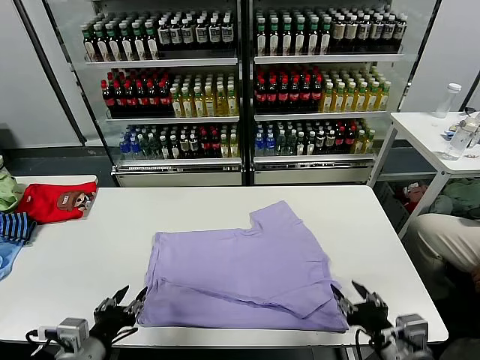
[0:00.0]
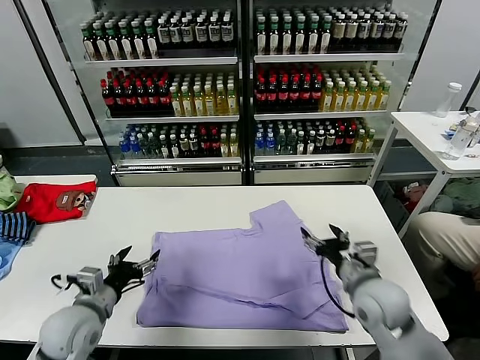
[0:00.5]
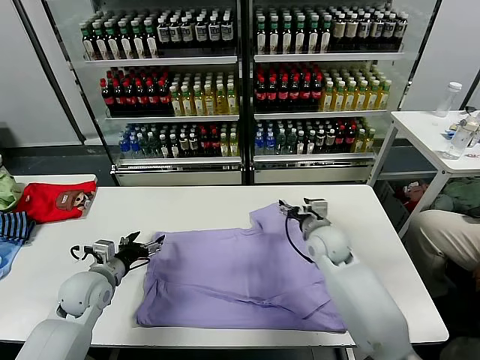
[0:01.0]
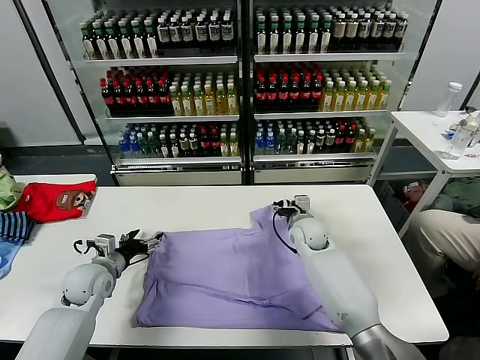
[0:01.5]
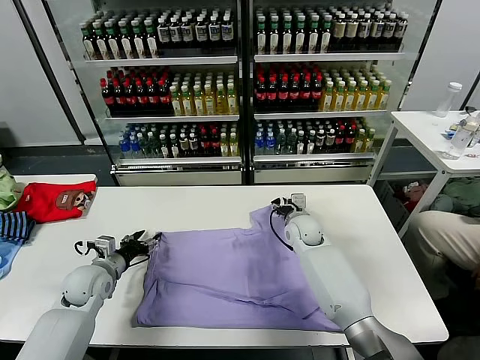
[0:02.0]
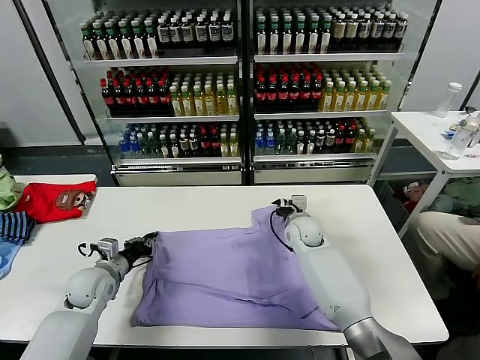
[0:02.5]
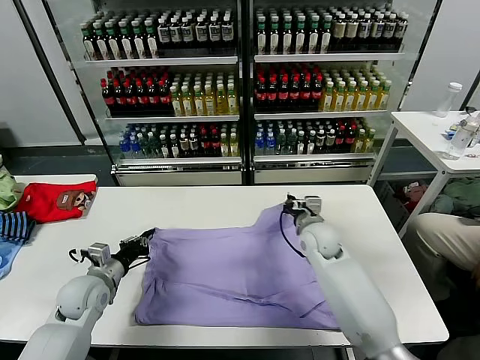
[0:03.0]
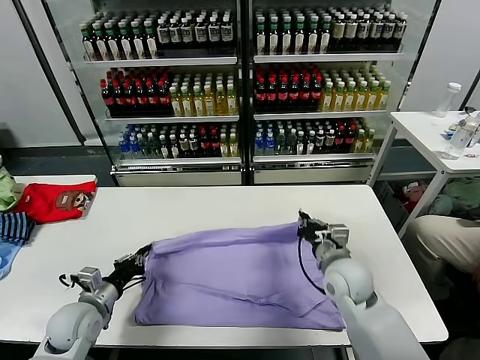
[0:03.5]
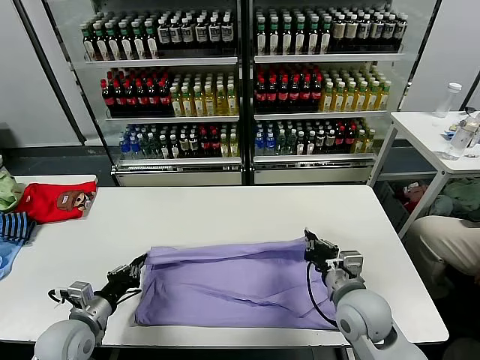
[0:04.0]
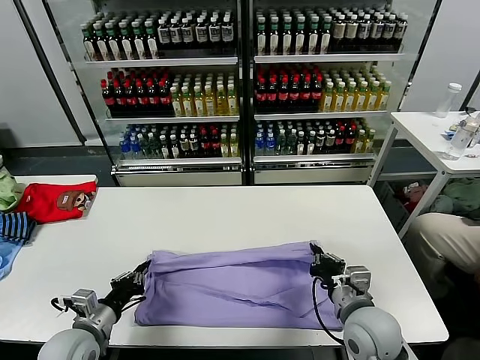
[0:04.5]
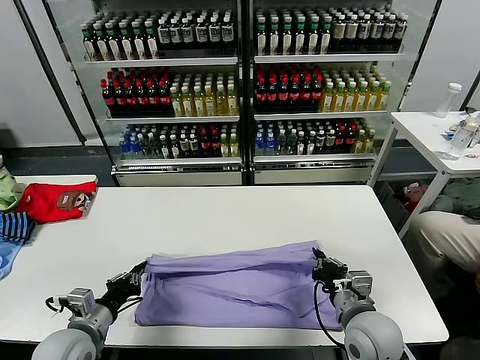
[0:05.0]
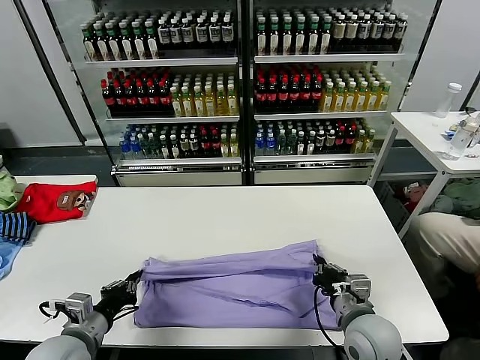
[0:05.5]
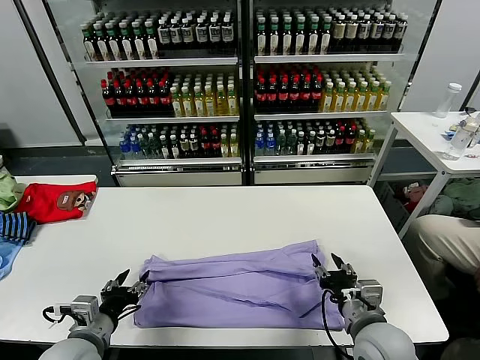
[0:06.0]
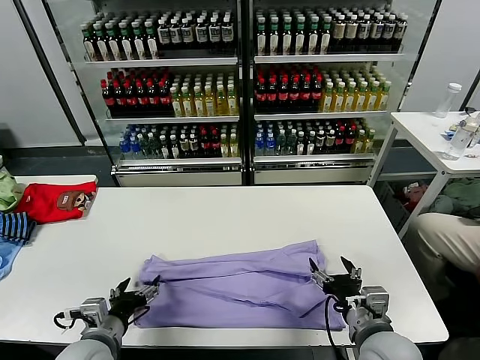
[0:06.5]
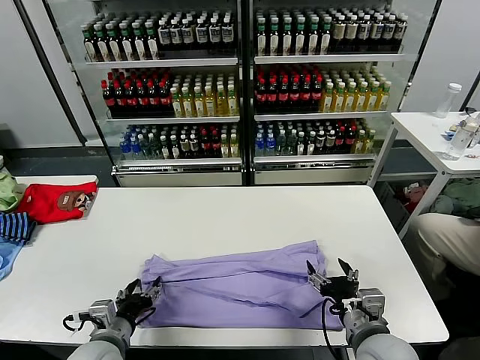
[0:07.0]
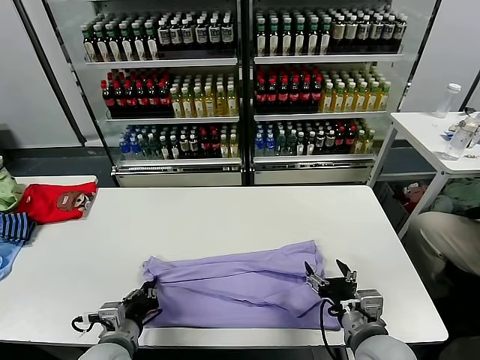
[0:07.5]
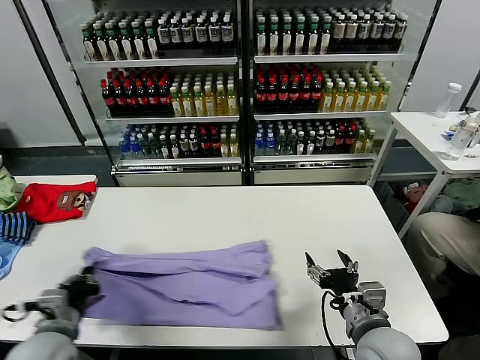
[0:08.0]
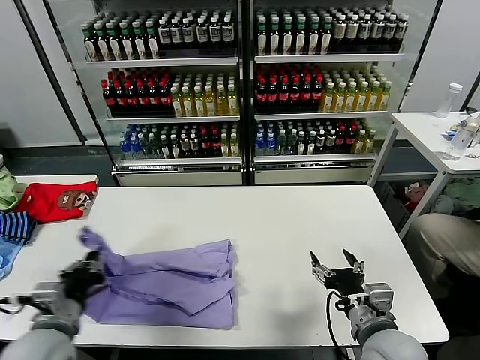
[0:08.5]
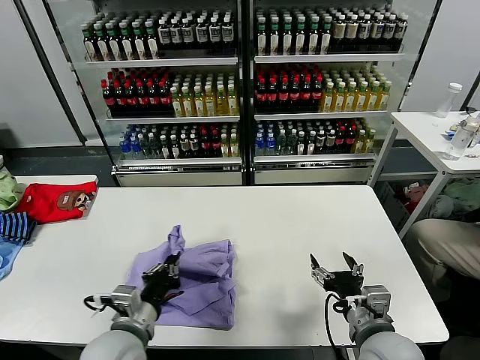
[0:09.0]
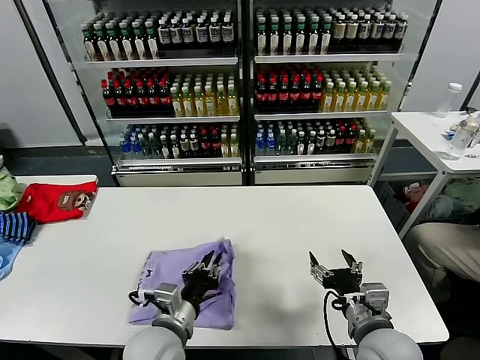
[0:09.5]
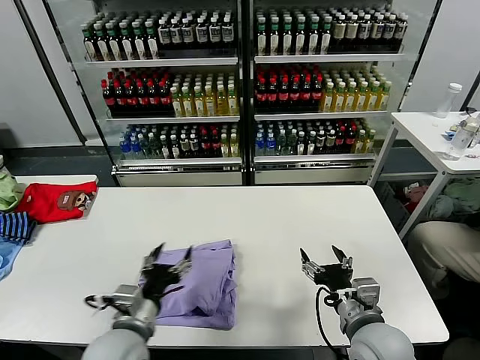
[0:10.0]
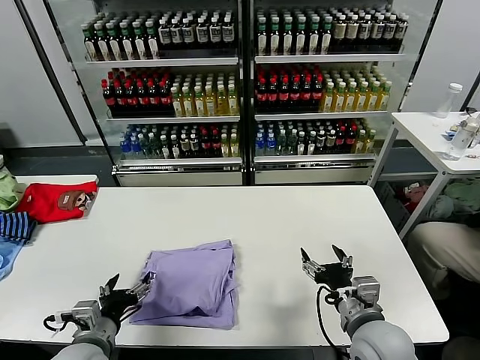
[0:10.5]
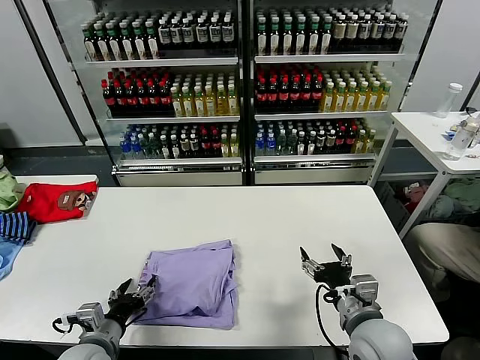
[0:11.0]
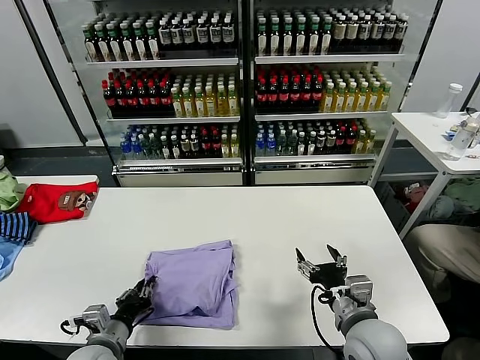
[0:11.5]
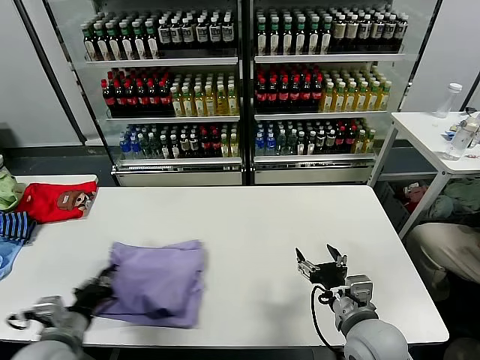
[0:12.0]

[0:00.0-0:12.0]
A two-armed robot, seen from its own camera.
Task of the whole recording: fold and organize the clothes.
Step, 0:00.5 to 0:02.5: use both grippers simultaneously to clamp the upper edge of the clothing fabric.
Step, 0:03.0 to 0:06.0: use both grippers to drag the upper edge of the fabric backward and fold it over the lower edge.
Step, 0:06.5 to 0:07.5: use the left gripper to clamp the left edge of the fabric.
Step, 0:08.0 to 0:09.5: use the left gripper to drag the left edge of the fabric to the left and folds it over the right edge.
0:00.0 to 0:02.0: The left gripper moves forward, some 20 cm, while the right gripper heads forward, covering some 35 cm.
0:02.0 to 0:04.0: The left gripper travels backward by roughly 15 cm, and closes up, while the right gripper travels backward by about 25 cm, and closes its fingers.
0:04.0 to 0:06.0: The left gripper shifts by approximately 5 cm, and opens up, while the right gripper goes roughly 5 cm backward, and opens its fingers.
0:06.0 to 0:08.0: The left gripper closes its fingers.
0:08.0 to 0:10.0: The left gripper shifts roughly 15 cm to the right, and opens its fingers.
0:10.0 to 0:12.0: The left gripper moves to the left, roughly 15 cm, and closes.

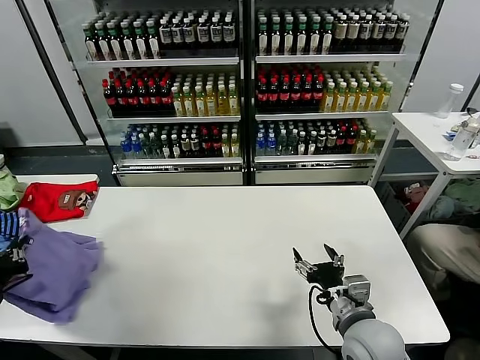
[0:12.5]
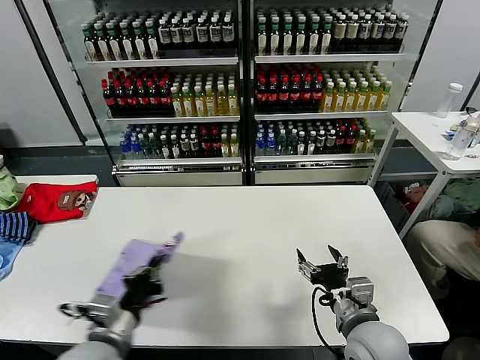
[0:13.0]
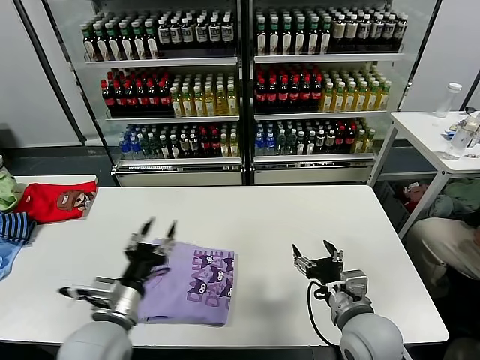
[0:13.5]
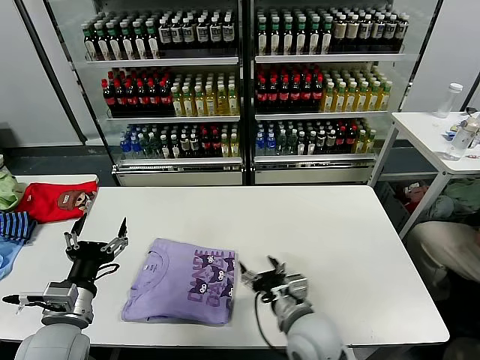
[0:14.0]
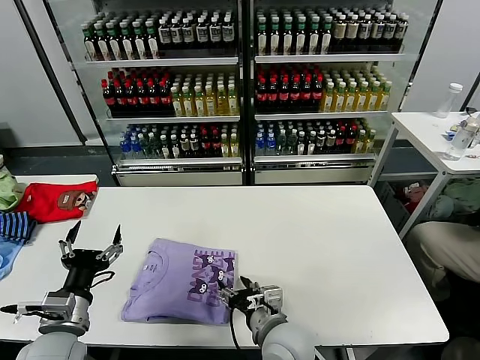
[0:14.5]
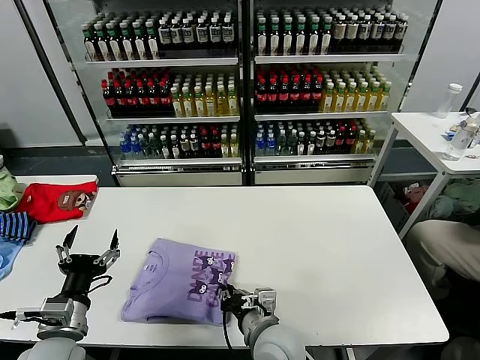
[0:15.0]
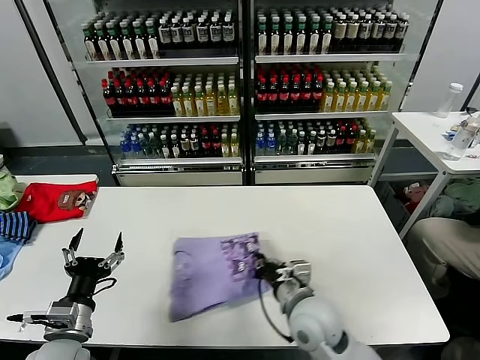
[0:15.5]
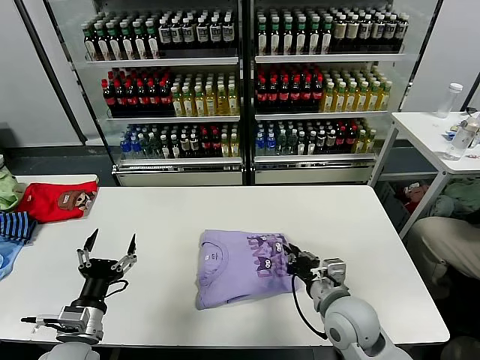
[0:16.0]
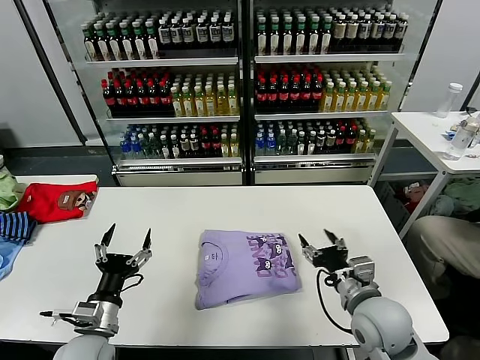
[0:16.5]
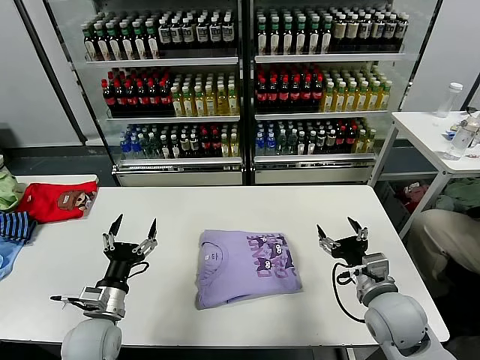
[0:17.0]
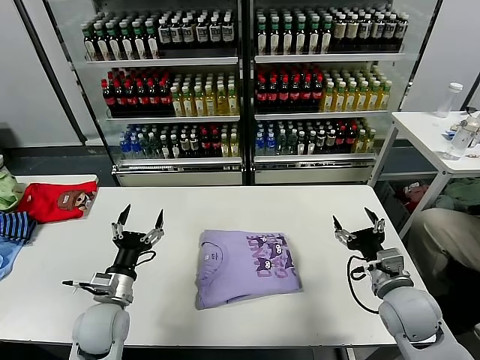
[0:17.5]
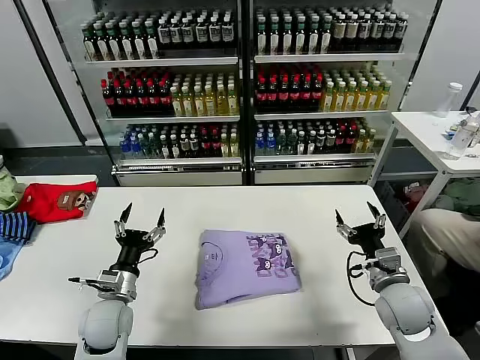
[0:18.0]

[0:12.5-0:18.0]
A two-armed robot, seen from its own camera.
Task of the whole recording: fold and organize the clothes.
Step, 0:13.5 to 0:16.0: Drag the clothes to the center of the table.
0:12.5 to 0:14.5: The left gripper moves to the right and downward, approximately 15 cm, and opens up; the right gripper goes some 15 cm to the left.
0:14.5 to 0:16.0: The right gripper goes some 10 cm to the right, and closes.
0:16.0 to 0:18.0: The left gripper shifts some 10 cm forward, while the right gripper is displaced to the right by roughly 10 cm, and opens its fingers.

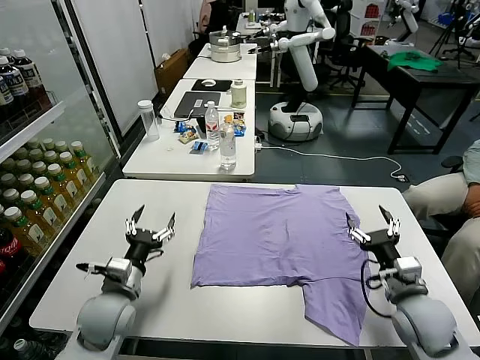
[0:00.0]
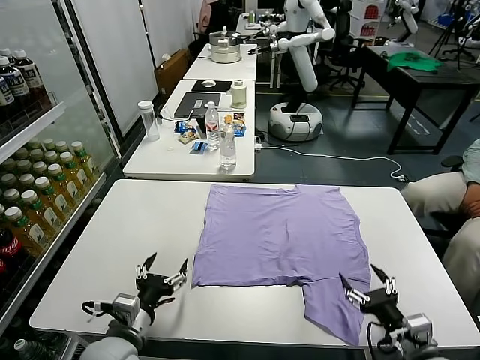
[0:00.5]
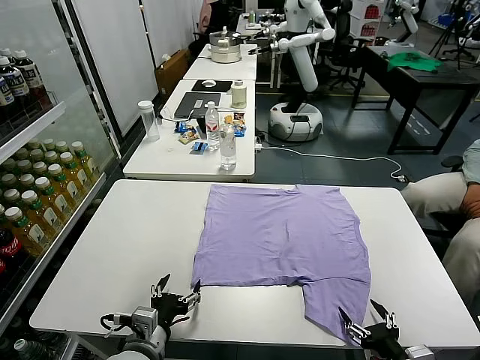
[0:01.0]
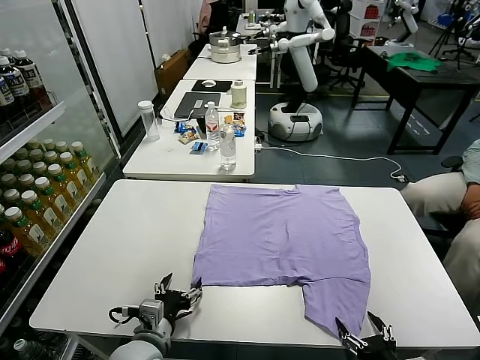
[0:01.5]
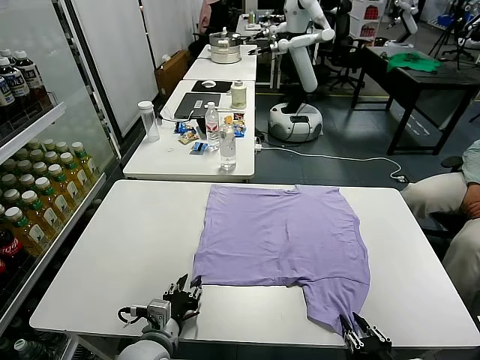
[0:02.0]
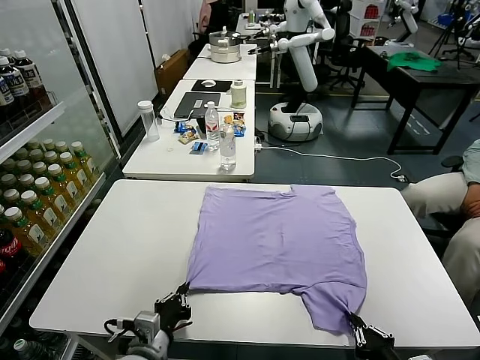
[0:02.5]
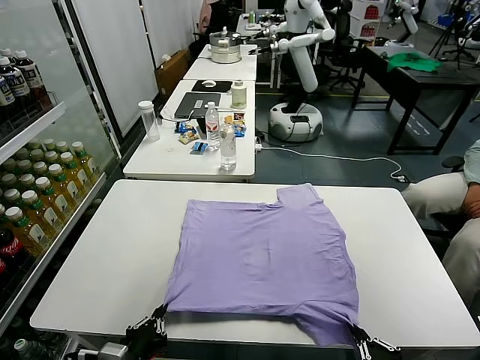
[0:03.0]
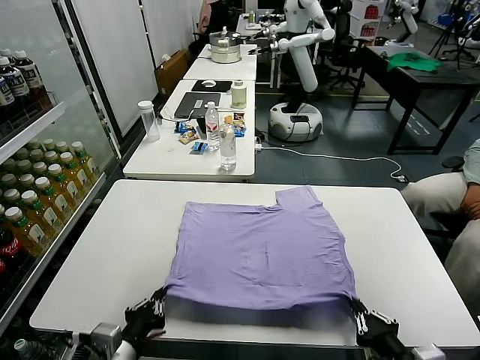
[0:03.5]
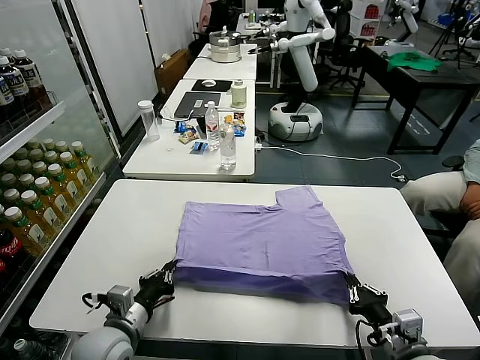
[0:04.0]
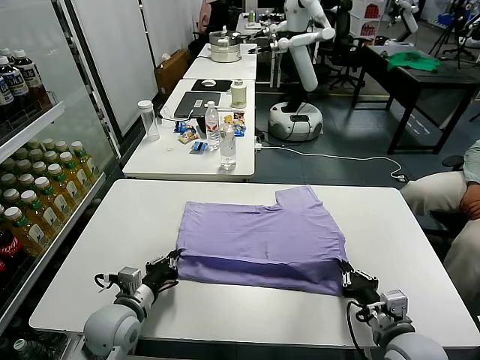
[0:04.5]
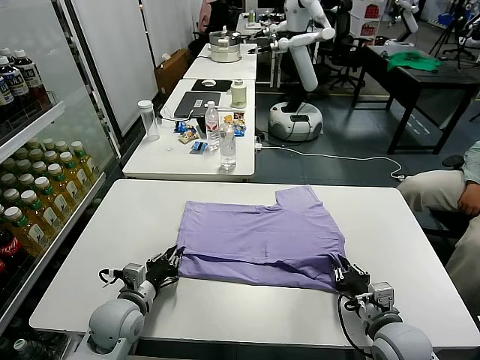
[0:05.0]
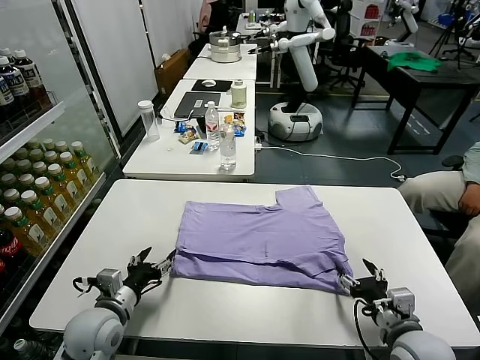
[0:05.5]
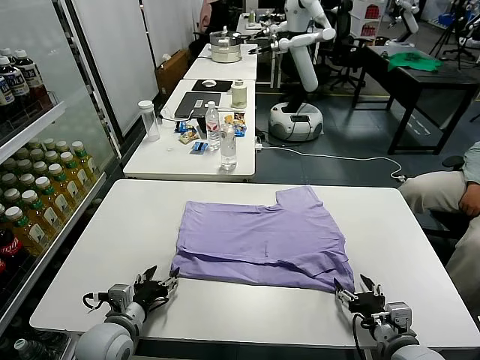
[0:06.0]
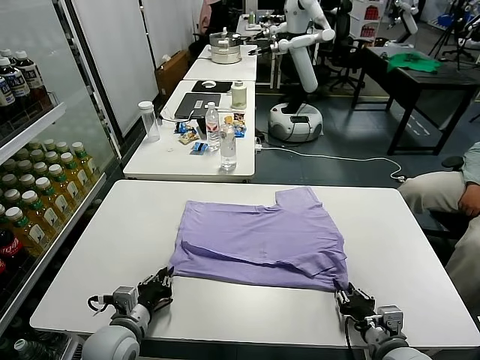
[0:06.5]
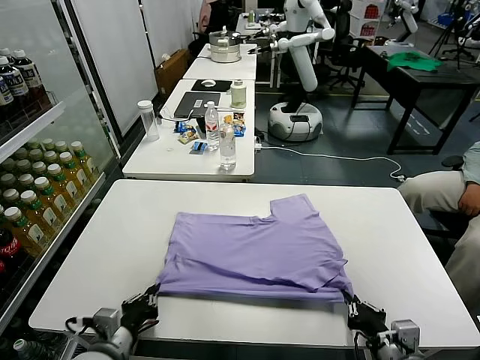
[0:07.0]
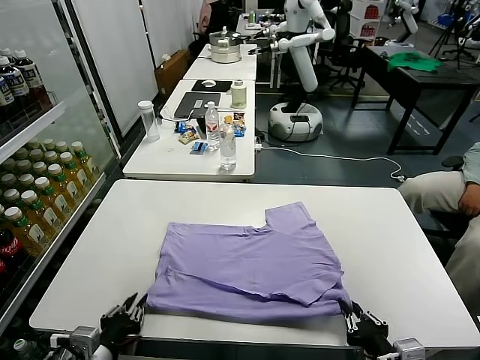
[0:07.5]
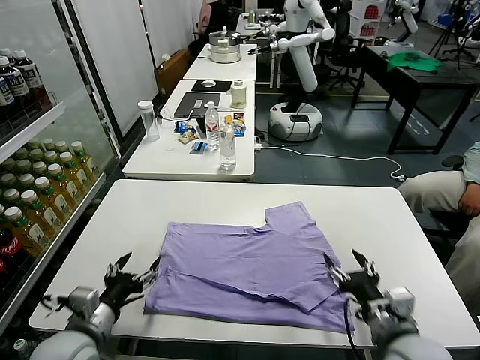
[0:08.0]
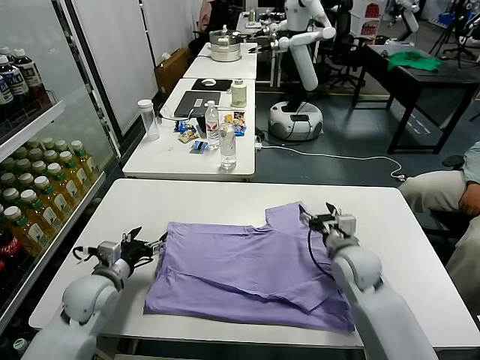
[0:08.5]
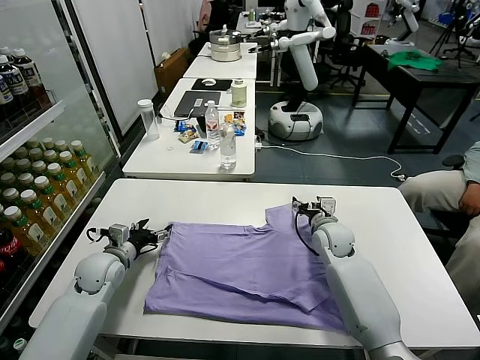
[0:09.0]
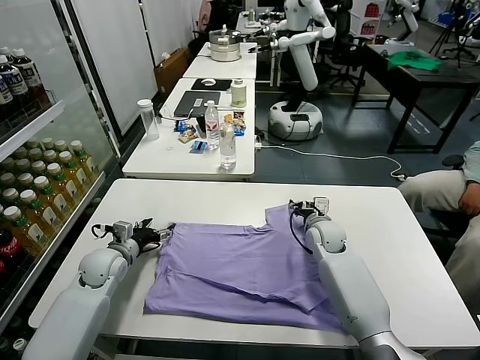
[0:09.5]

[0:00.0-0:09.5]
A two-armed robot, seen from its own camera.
Task of the whole recording: fold and organize the clothes.
Step, 0:00.0 to 0:02.0: use both grippers simultaneously to clamp the lower edge of the clothing fabric.
Step, 0:02.5 to 0:05.0: use both grippers to drag the lower edge of the fabric forward and fold it over the upper edge.
Step, 0:05.5 to 0:07.5: Drag the clothes downward with both gripper.
0:02.0 to 0:04.0: The right gripper is displaced forward by roughly 10 cm. Meanwhile the left gripper shifts about 5 cm to the left, goes backward and returns, about 10 cm each way, and closes up.
0:04.0 to 0:05.5: The left gripper opens up. Meanwhile the right gripper opens.
0:05.5 to 0:07.5: Both grippers move backward, some 10 cm. The left gripper closes, while the right gripper closes up.
0:07.5 to 0:09.5: The two grippers go approximately 35 cm forward. The right gripper opens its fingers; the left gripper opens up.
